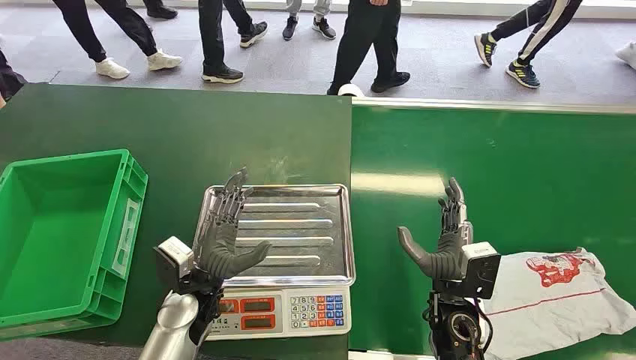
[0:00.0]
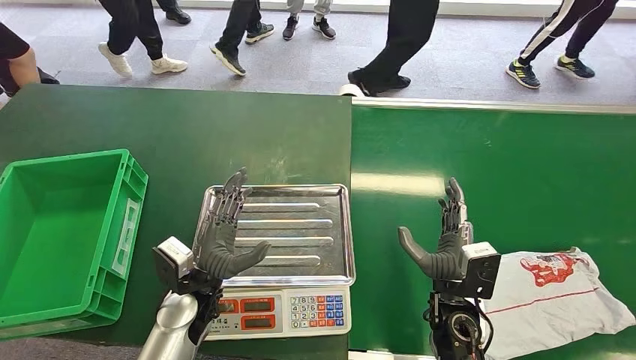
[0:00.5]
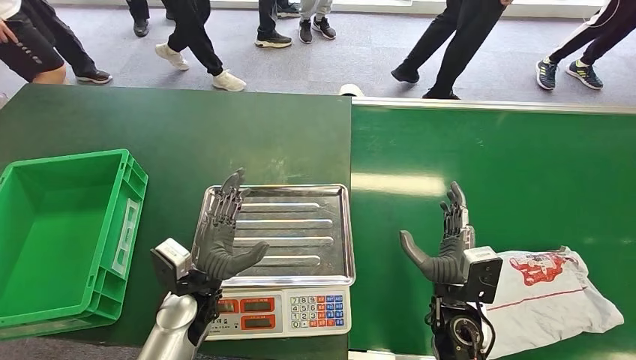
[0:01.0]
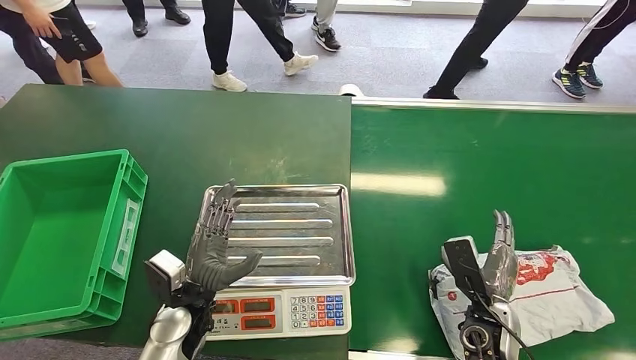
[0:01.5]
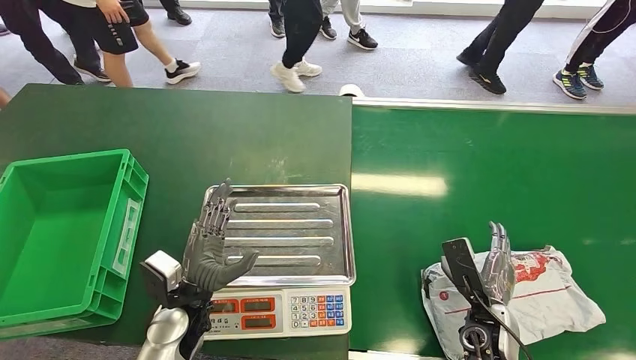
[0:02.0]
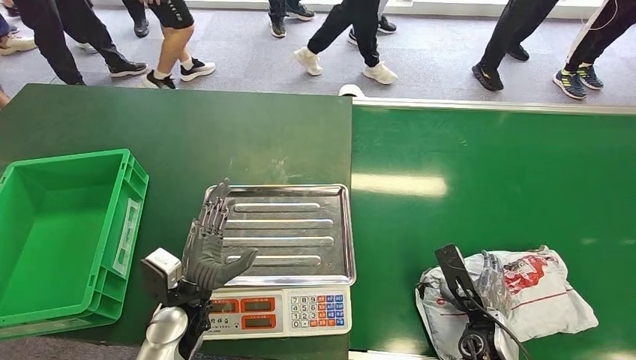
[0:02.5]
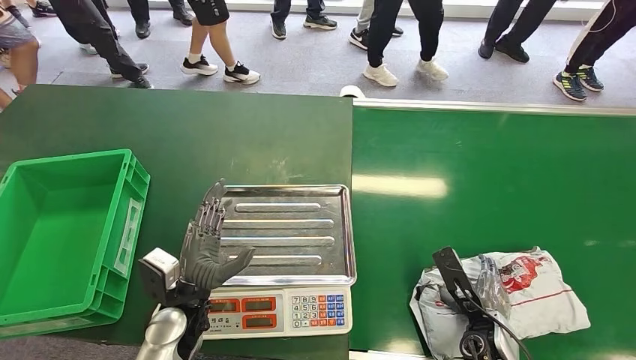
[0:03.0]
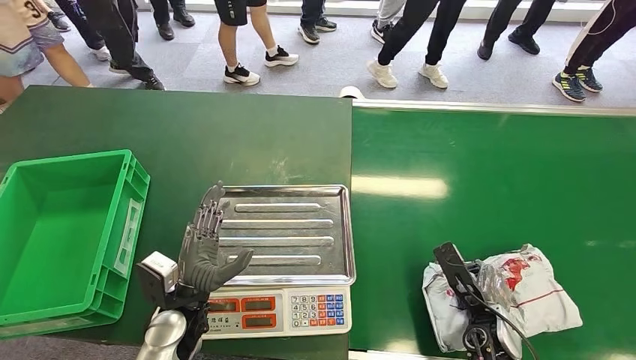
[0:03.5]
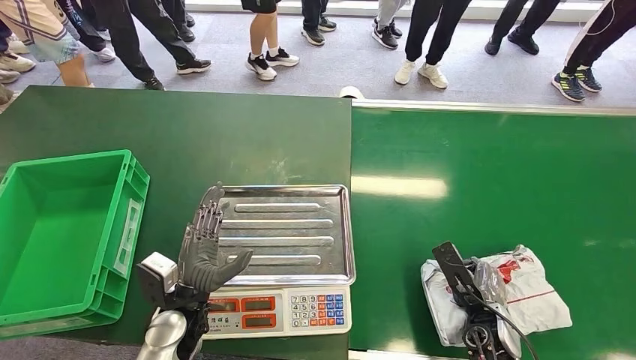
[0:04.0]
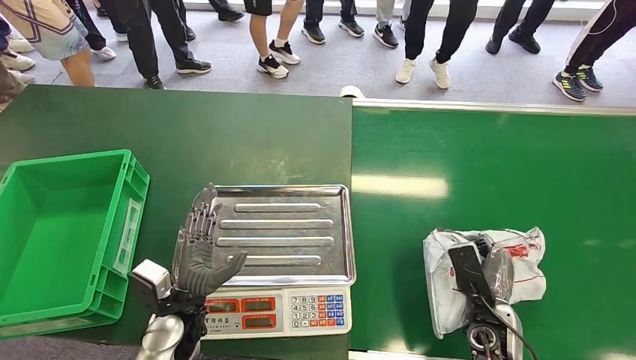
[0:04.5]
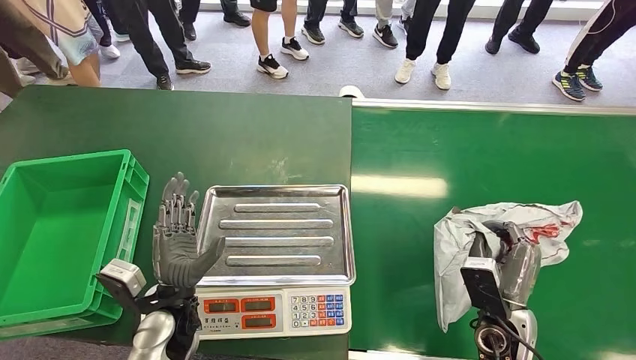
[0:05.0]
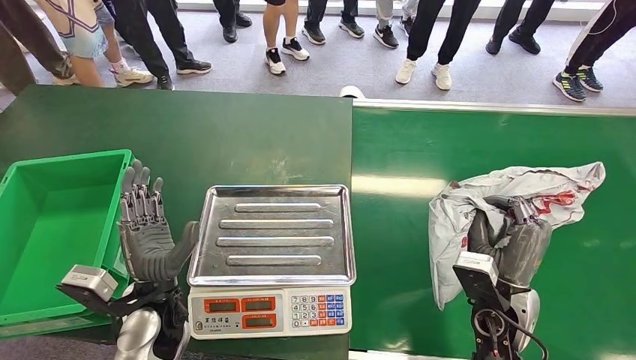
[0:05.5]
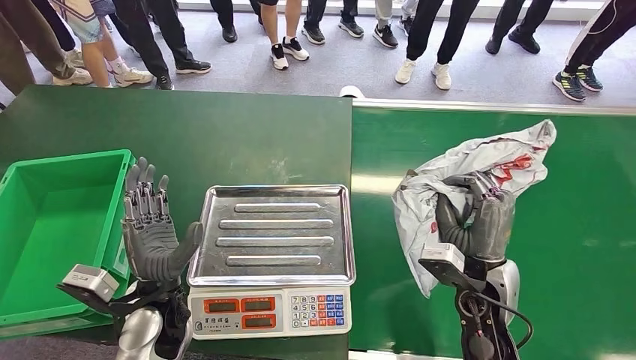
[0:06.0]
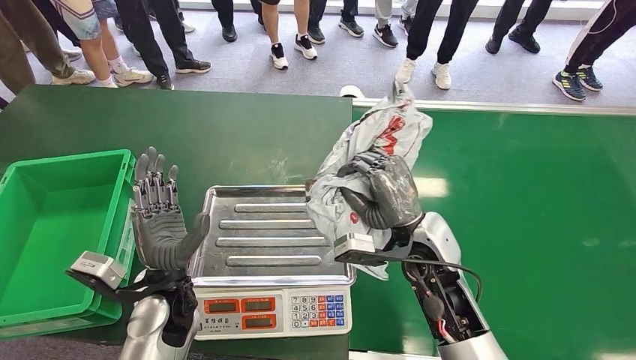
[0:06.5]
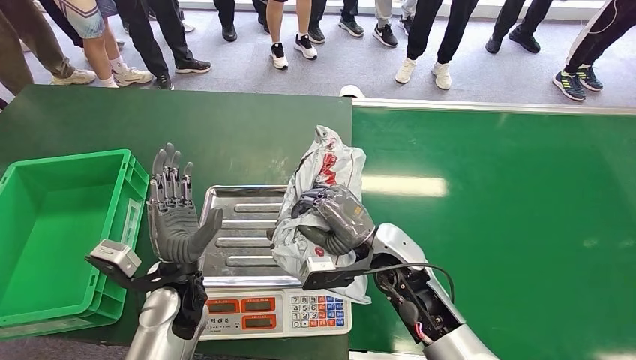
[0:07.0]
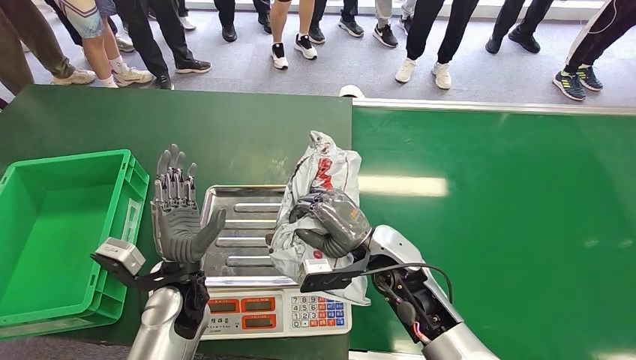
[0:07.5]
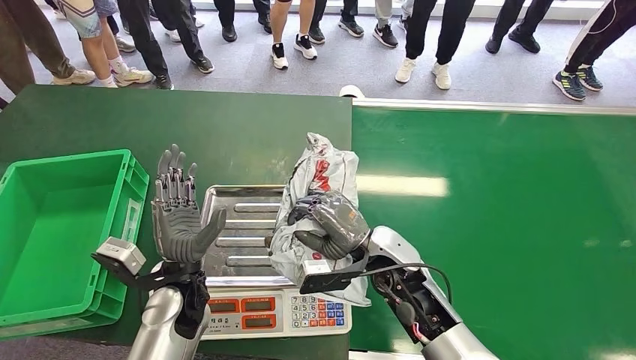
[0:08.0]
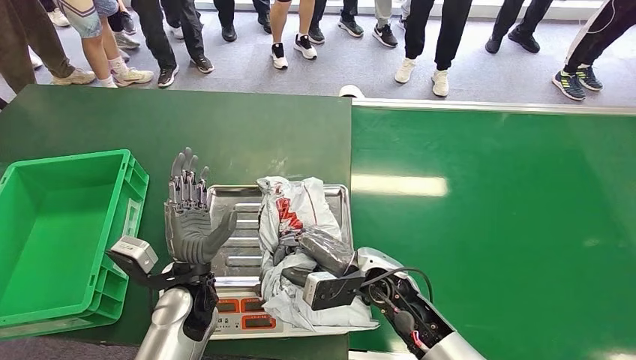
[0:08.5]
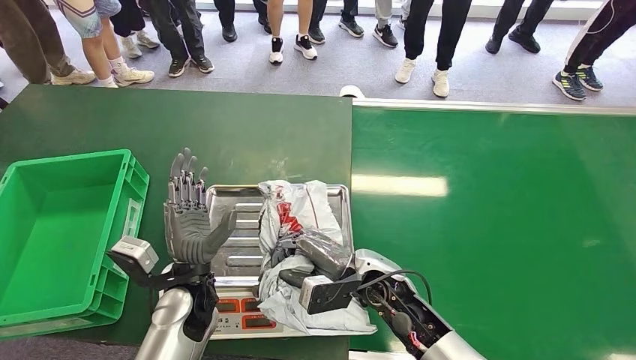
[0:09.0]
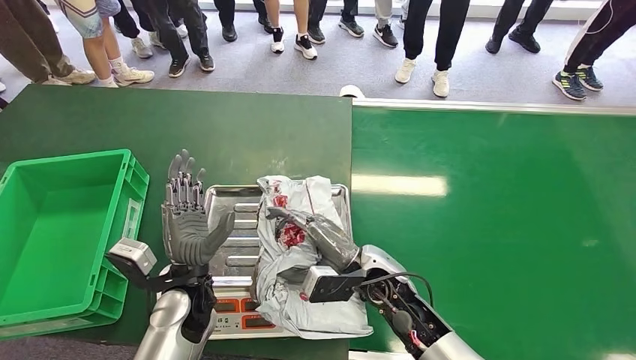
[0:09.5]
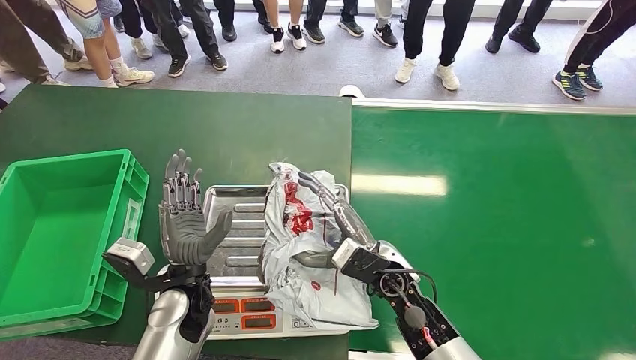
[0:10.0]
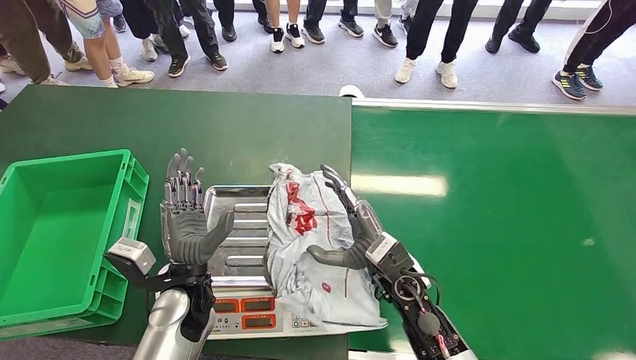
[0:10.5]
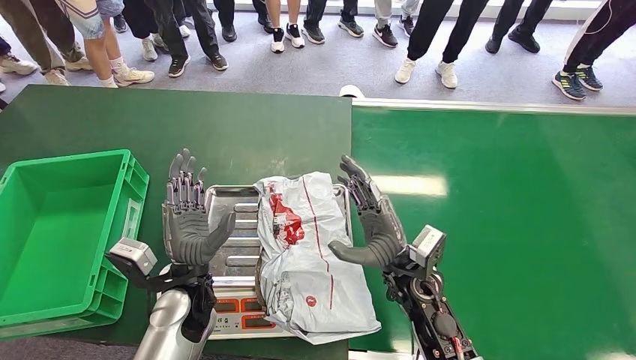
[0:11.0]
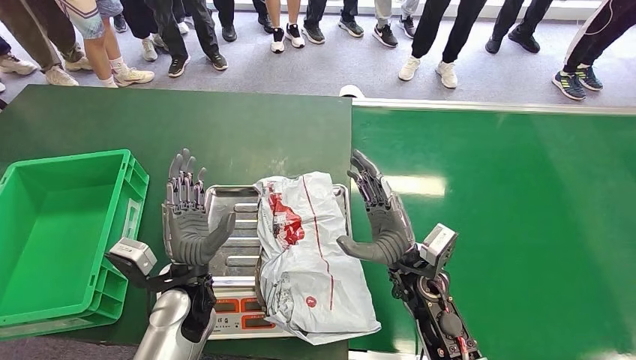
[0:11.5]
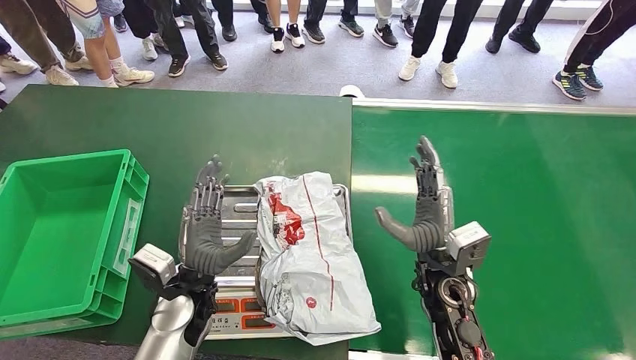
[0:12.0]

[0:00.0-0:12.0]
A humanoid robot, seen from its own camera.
Step, 0:00.0 to 0:05.5: Pick up the package from the conveyor belt.
Step, 0:06.0 to 0:10.5: Place the package onto the inbound machine.
0:10.0 to 0:12.0: The right hand is displaced to the right by approximately 5 cm.

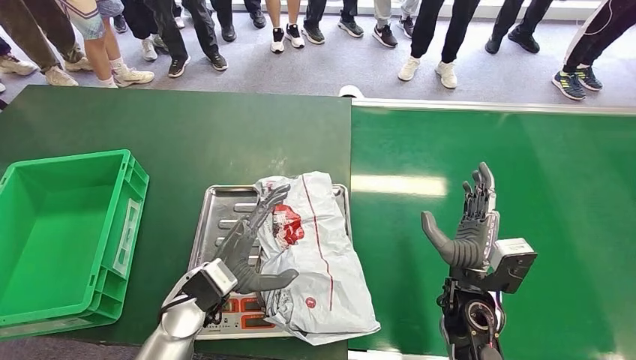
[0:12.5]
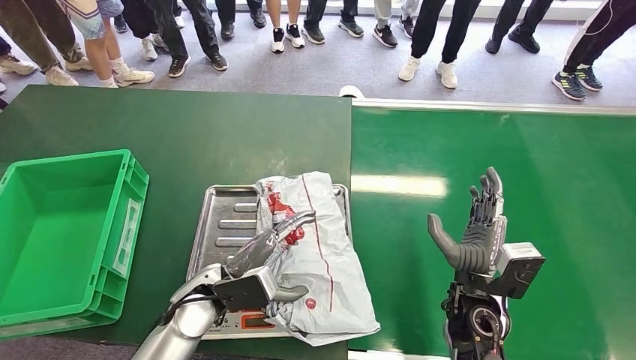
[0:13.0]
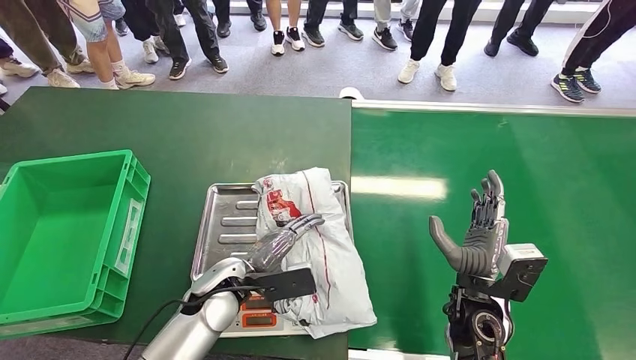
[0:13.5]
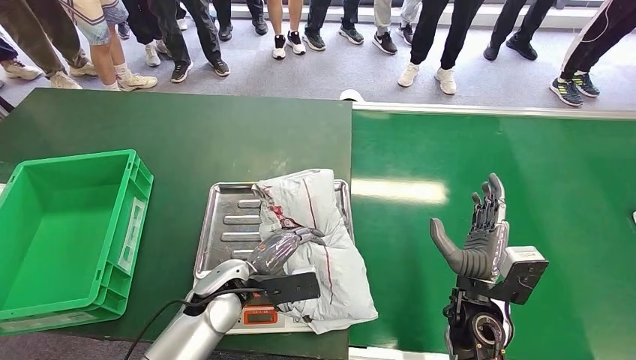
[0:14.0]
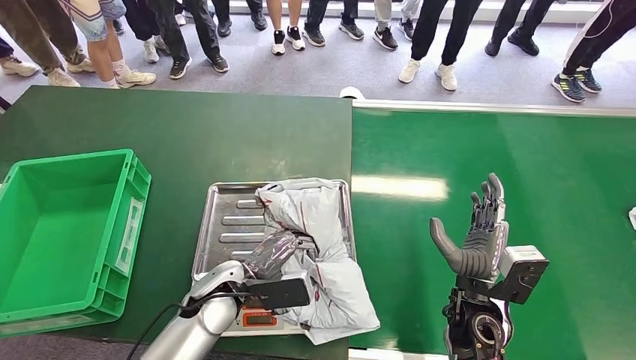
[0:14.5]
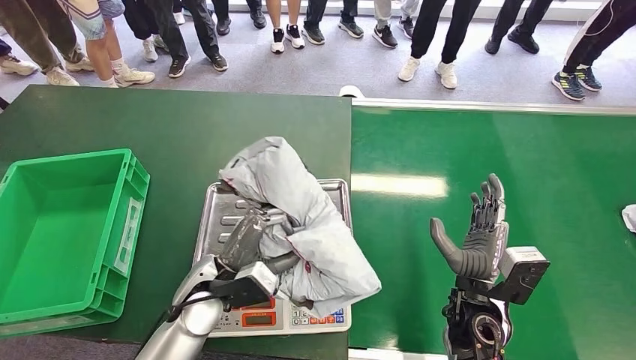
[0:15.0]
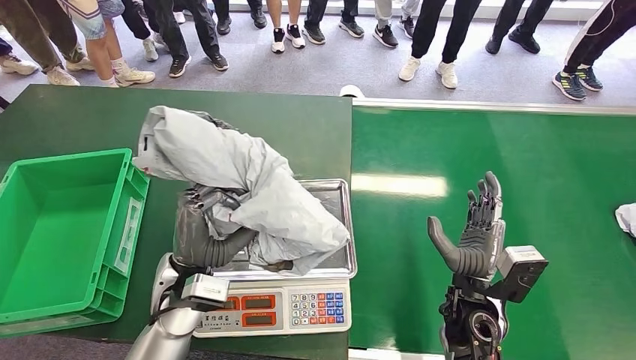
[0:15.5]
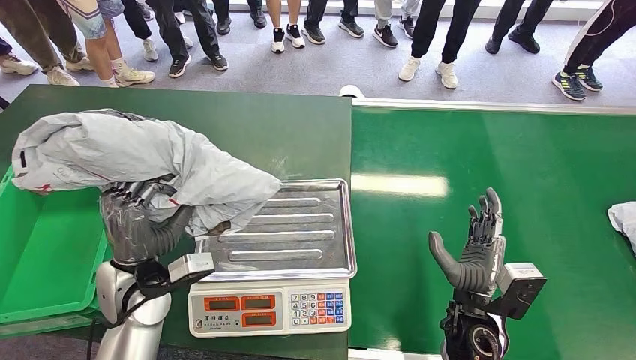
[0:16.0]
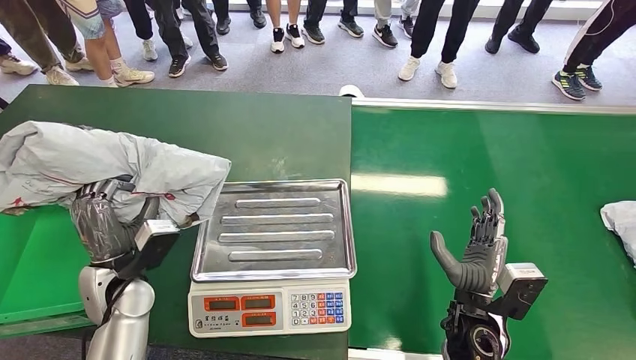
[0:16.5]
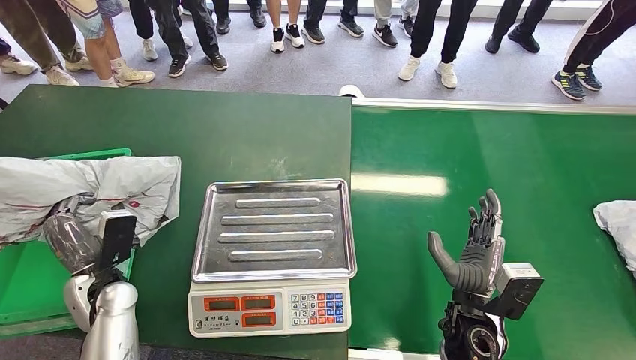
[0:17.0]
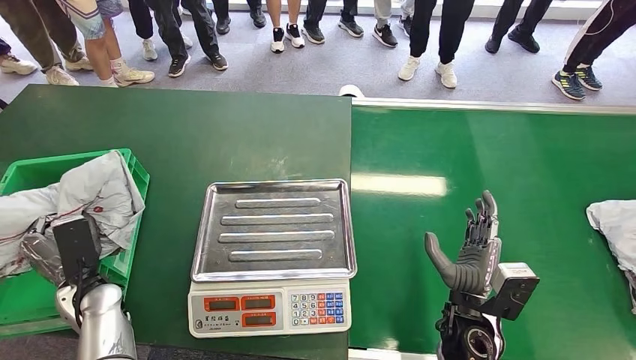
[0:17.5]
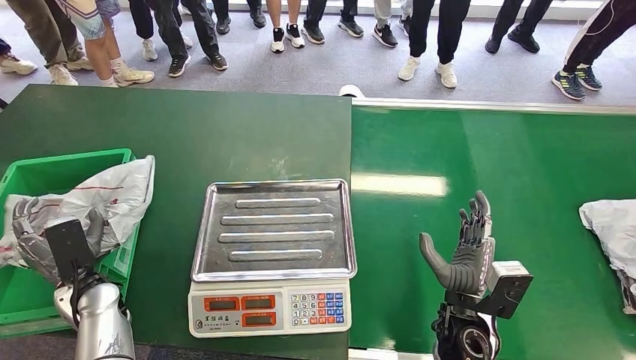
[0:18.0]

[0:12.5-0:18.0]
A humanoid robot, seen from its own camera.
Step, 0:12.5 to 0:14.5: Pick up the package from the inbound machine.
Step, 0:15.5 to 0:18.0: Place the package into the parcel locker.
